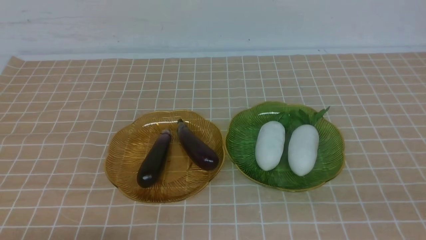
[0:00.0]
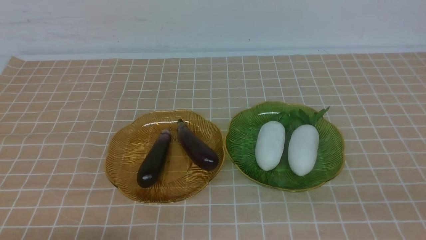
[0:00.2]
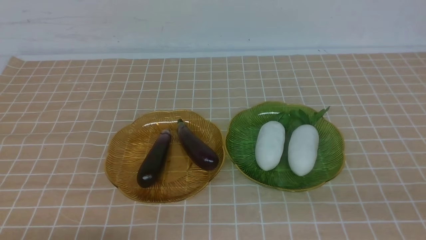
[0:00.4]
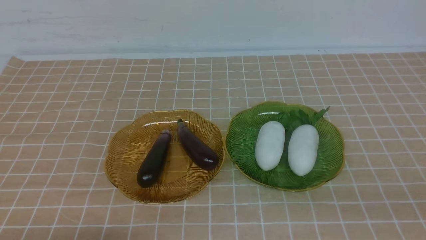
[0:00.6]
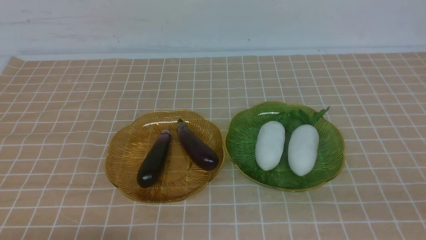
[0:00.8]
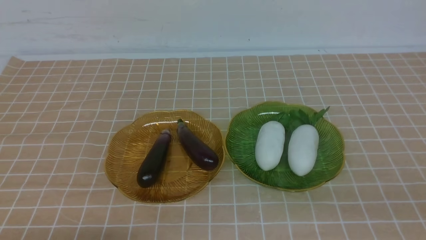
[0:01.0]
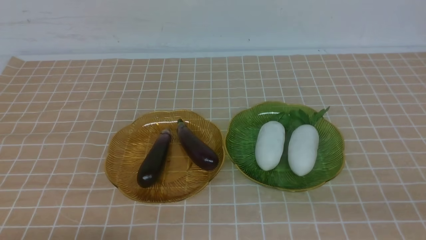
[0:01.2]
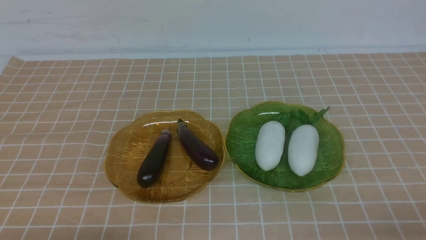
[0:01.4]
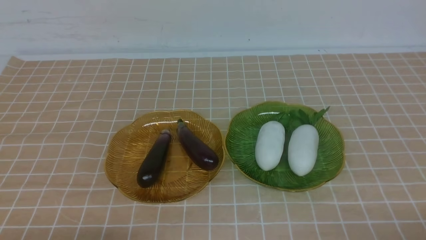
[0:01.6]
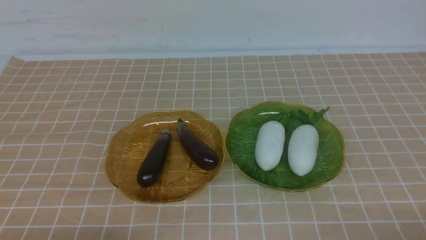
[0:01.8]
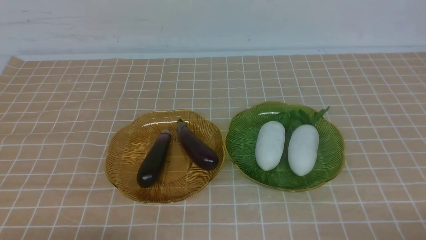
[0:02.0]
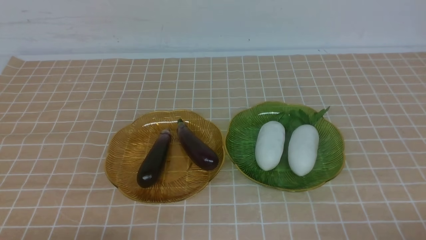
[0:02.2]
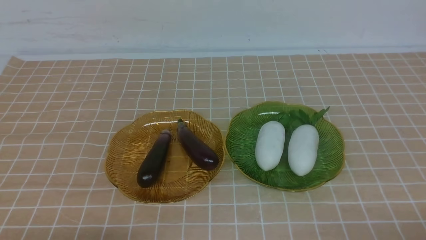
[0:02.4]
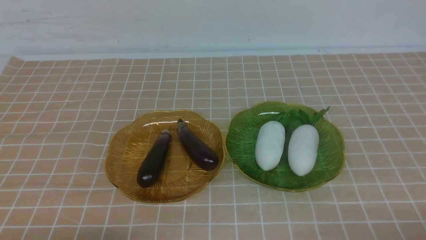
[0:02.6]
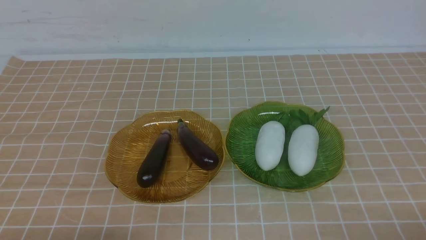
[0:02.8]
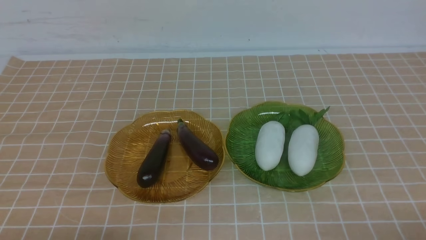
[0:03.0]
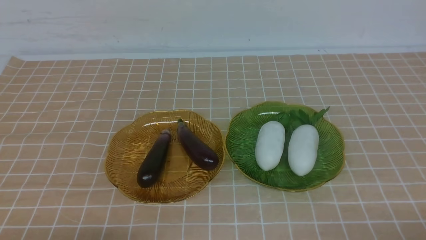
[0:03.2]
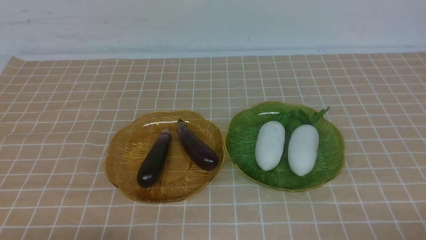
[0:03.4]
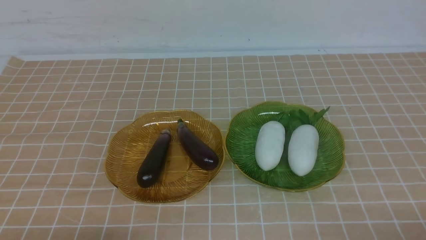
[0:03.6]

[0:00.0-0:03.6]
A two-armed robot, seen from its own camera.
0:01.8 to 0:03.6: Both grippers stay put.

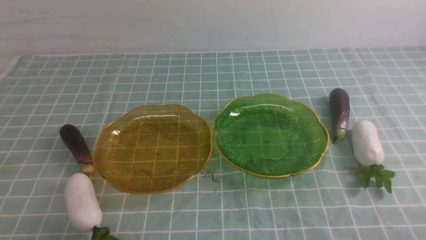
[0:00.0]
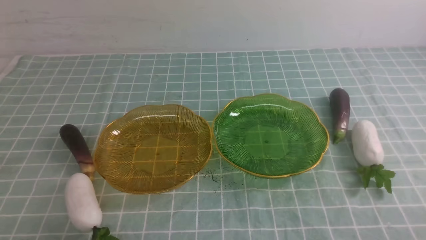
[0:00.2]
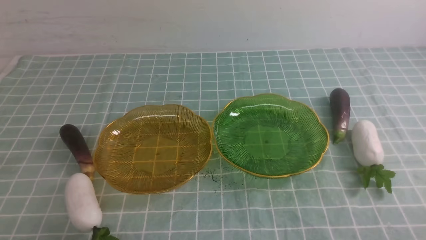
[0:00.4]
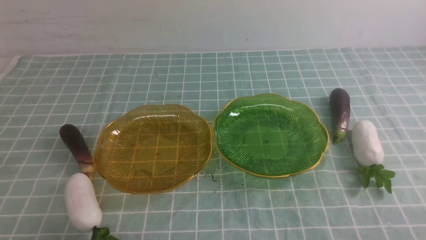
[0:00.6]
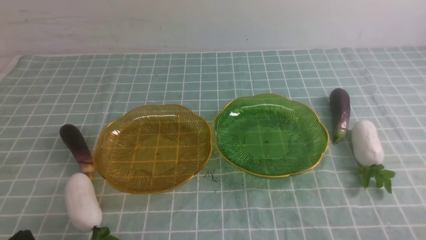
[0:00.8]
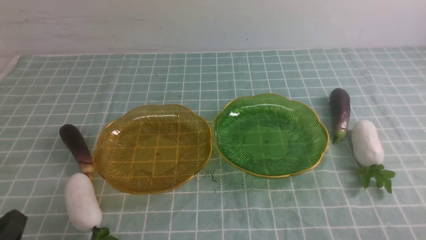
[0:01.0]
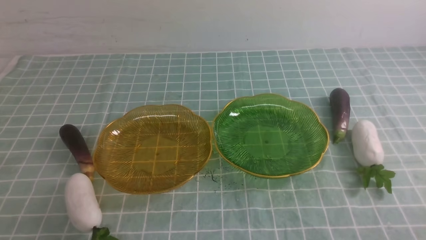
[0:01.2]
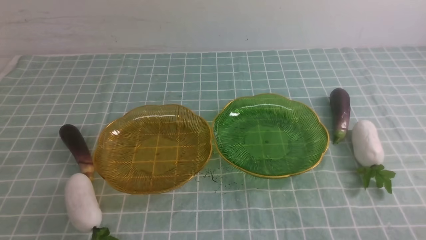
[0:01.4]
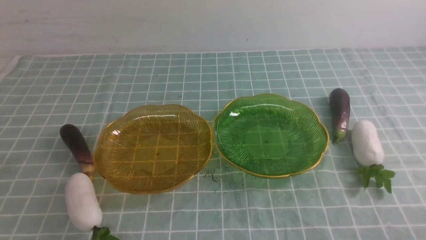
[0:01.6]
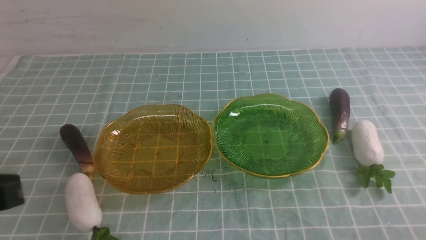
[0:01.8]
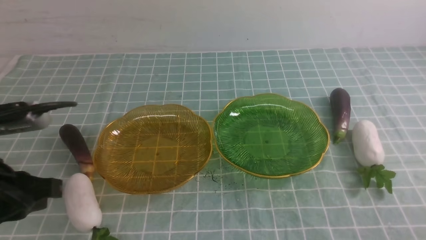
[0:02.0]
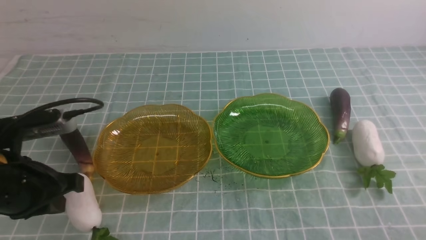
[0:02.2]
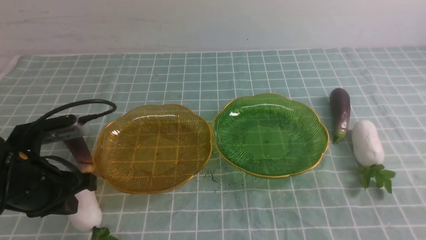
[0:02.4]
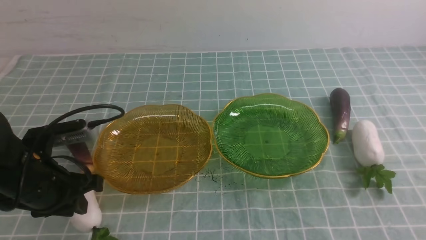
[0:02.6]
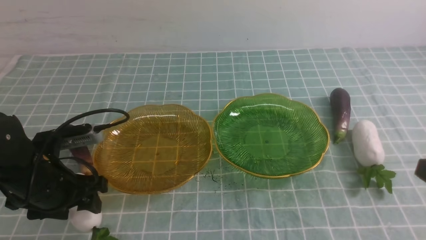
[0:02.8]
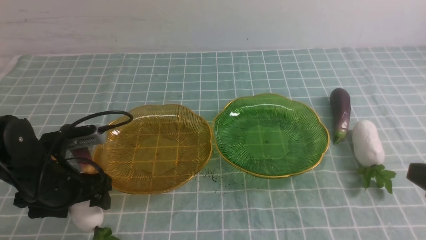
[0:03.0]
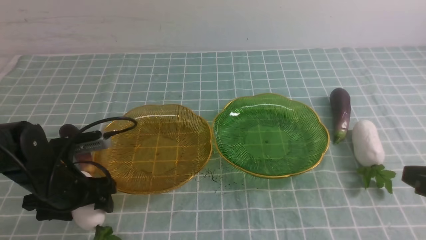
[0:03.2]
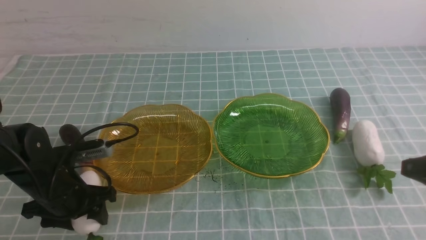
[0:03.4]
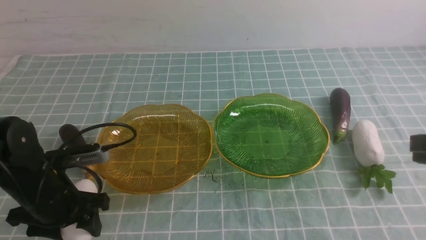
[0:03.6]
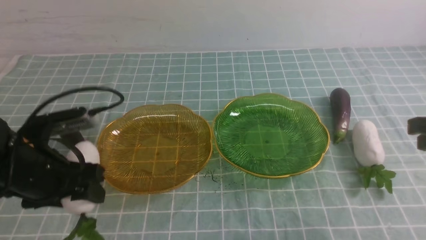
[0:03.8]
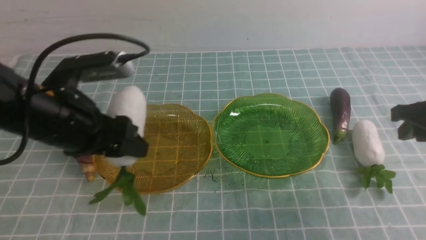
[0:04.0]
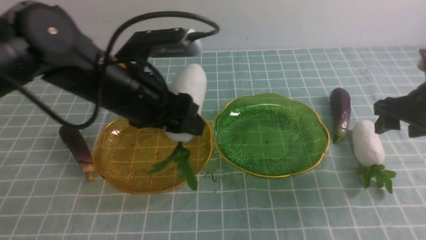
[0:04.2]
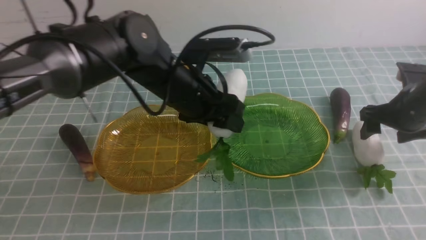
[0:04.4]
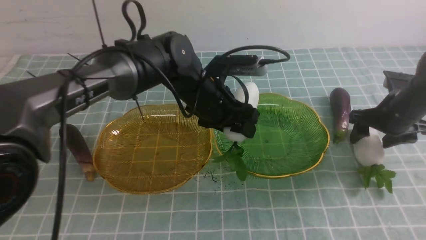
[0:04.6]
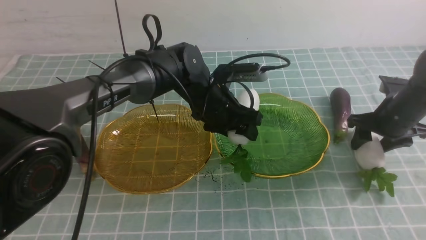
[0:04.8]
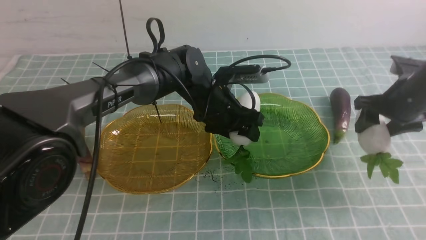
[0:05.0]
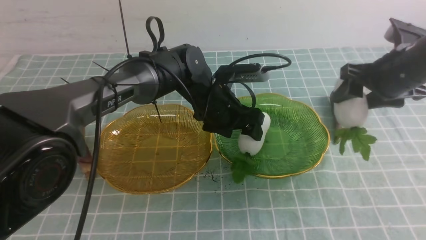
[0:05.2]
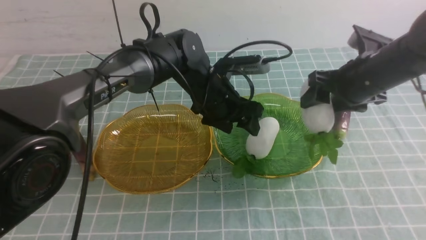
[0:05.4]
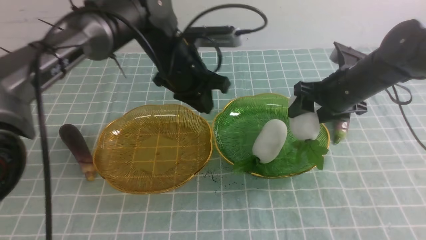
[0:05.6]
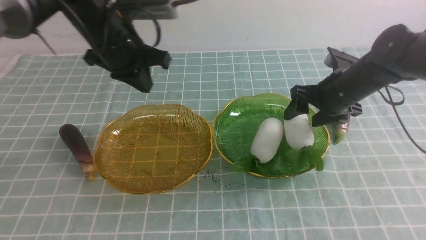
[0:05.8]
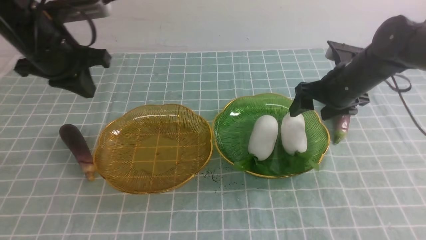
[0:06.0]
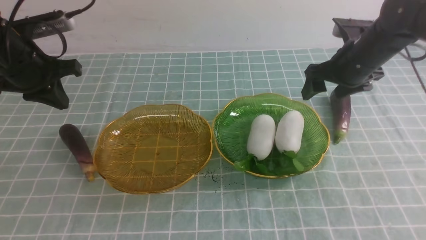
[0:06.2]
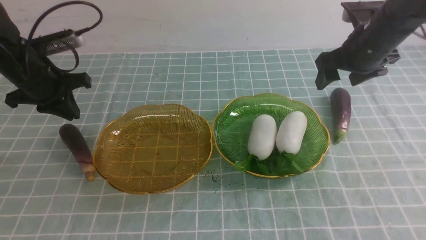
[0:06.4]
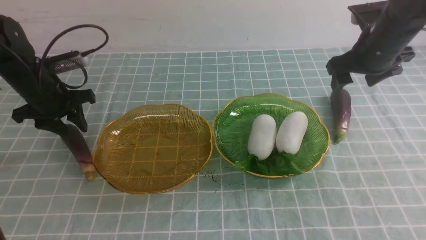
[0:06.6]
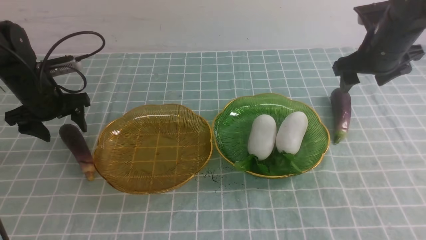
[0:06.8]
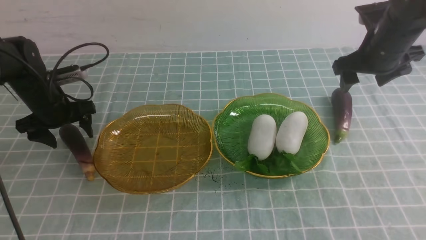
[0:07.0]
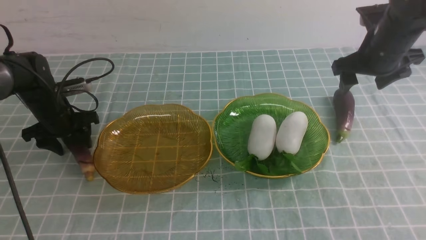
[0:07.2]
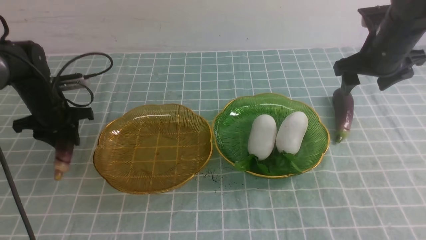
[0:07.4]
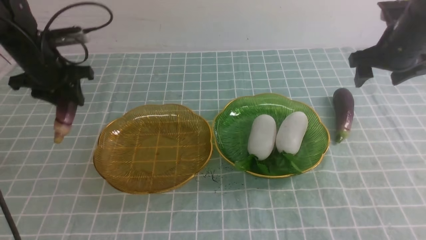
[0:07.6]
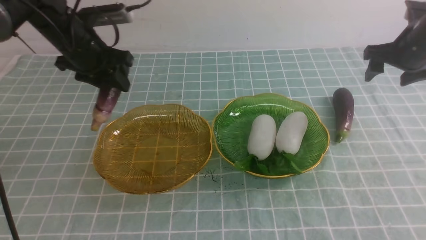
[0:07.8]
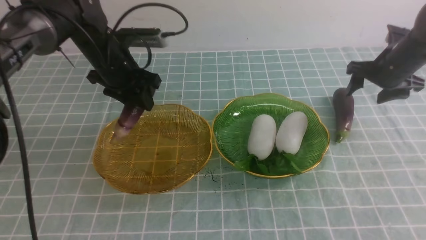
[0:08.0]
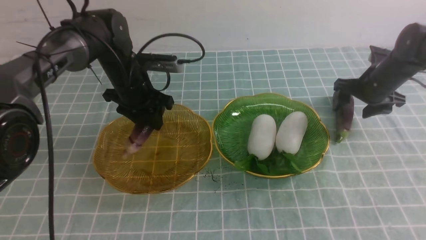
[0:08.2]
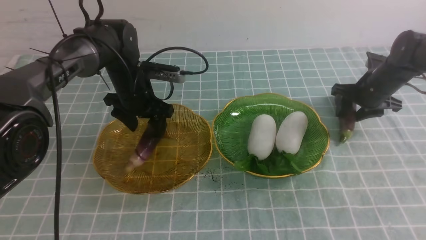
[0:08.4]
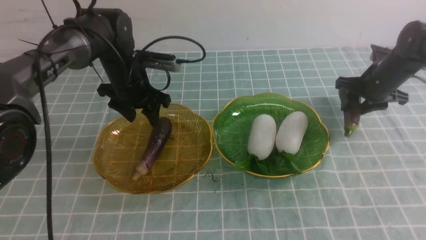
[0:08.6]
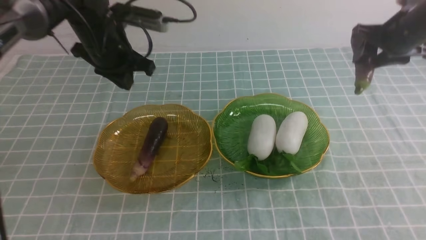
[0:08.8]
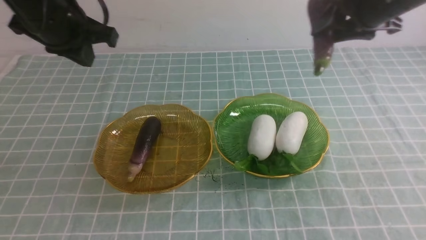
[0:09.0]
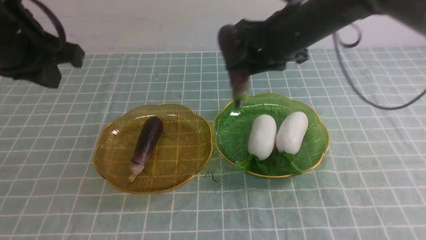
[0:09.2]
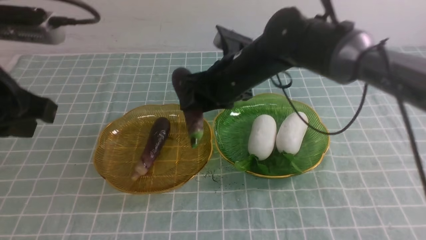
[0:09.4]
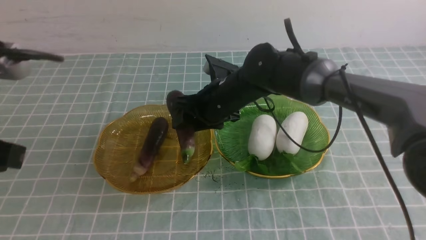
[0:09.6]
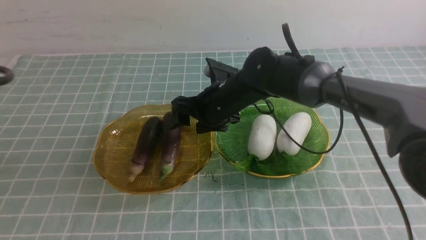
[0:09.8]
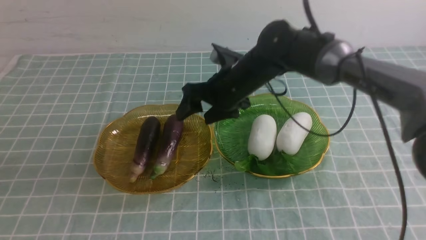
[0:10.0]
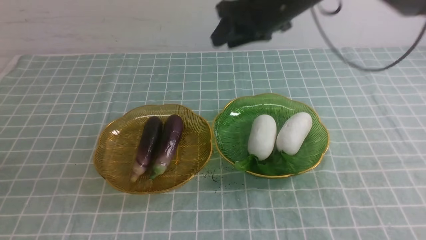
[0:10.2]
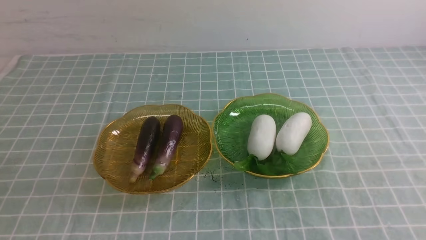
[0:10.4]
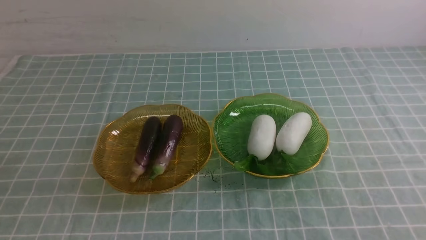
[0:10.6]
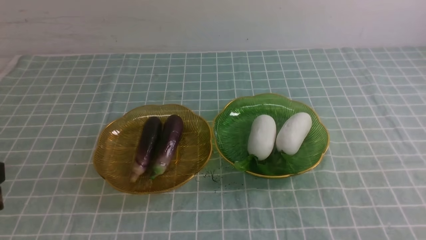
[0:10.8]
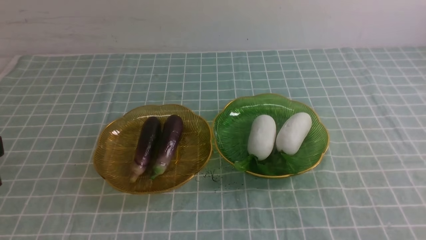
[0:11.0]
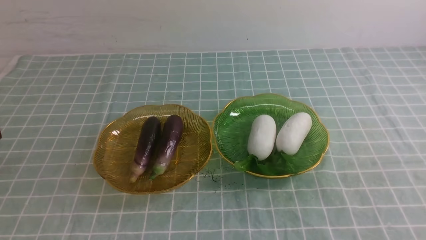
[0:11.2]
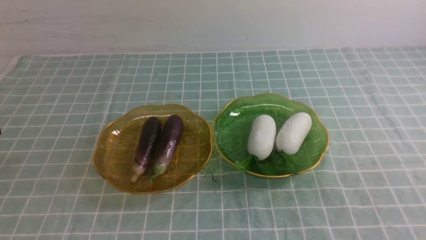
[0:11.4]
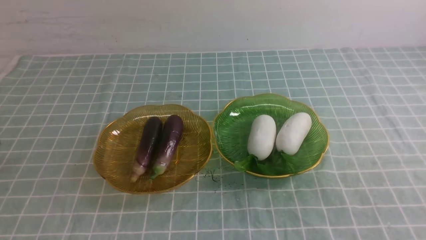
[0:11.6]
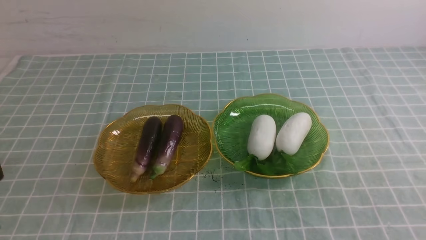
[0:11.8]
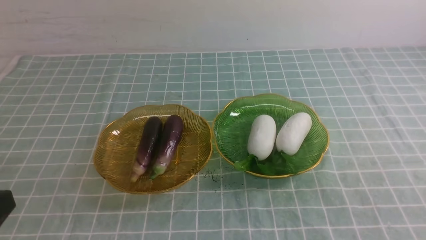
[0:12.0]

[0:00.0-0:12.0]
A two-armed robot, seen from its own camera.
Step, 0:00.0 to 0:04.2: use the left arm to grab a radish and put it into the right plate.
Step, 0:04.4 to 0:05.8: use the right arm to grab a radish and put it into the right plate.
Step, 0:06.2 to 0:08.4: use the left arm to grab an eggplant and put it into the left plate.
Step, 0:08.6 to 0:09.8: use the right arm to grab an eggplant and put it into the left plate.
0:01.6 to 0:03.0: The left gripper heads forward and downward, covering approximately 25 cm, and opens.
0:03.0 to 0:04.4: The right gripper shifts approximately 25 cm forward, and opens up. The left gripper moves to the right, forward and upward, roughly 25 cm.
0:04.4 to 0:06.0: The right gripper is displaced to the left by about 10 cm, while the left gripper heads to the left, covering approximately 20 cm, and closes up.
0:06.0 to 0:07.6: The left gripper goes roughly 10 cm downward and forward, and opens, while the right gripper heads to the right, covering roughly 10 cm.
0:07.6 to 0:09.0: The left gripper travels upward, backward and to the right by roughly 20 cm, and closes its fingers, while the right gripper heads to the left and upward, covering roughly 15 cm, and closes.
0:09.0 to 0:10.4: The right gripper shifts about 20 cm upward and backward, and closes its fingers; the left gripper heads backward, covering some 25 cm.

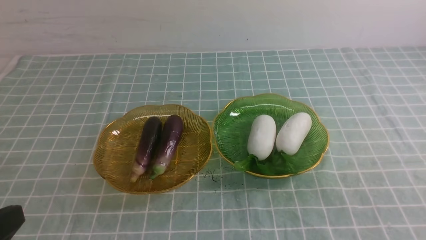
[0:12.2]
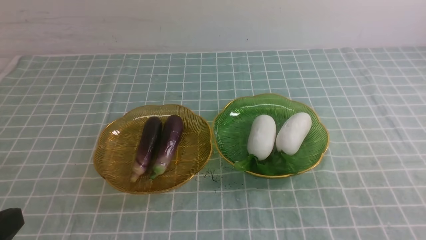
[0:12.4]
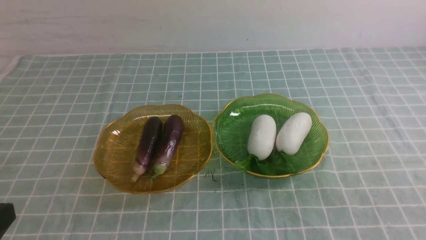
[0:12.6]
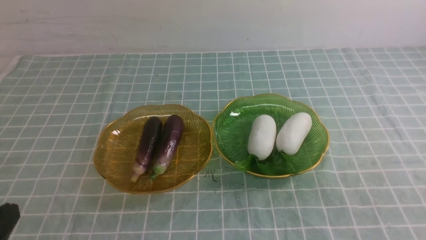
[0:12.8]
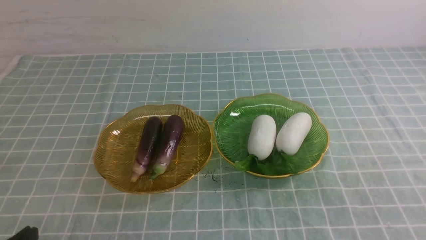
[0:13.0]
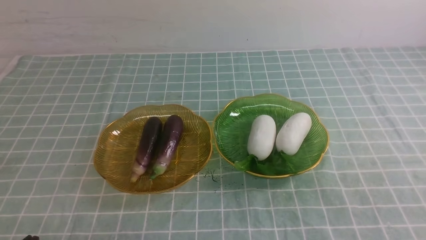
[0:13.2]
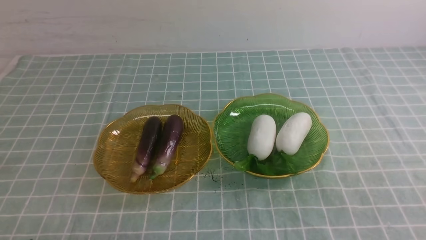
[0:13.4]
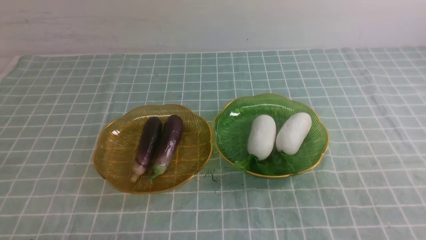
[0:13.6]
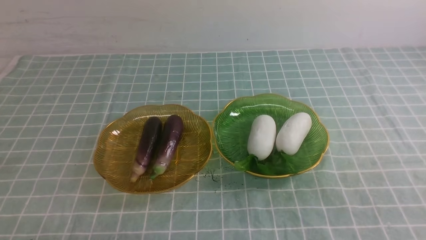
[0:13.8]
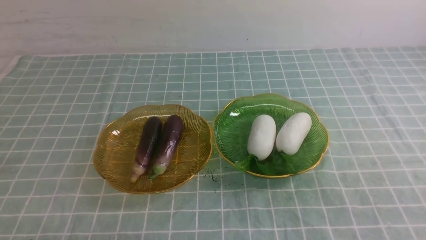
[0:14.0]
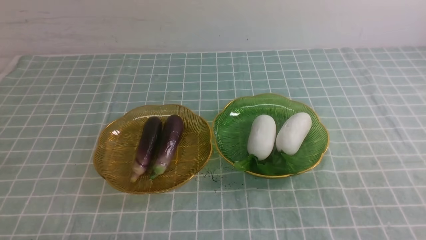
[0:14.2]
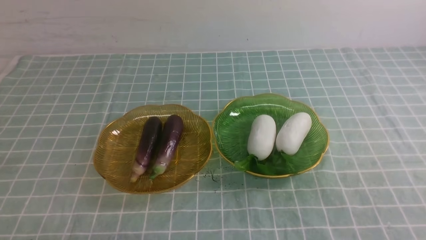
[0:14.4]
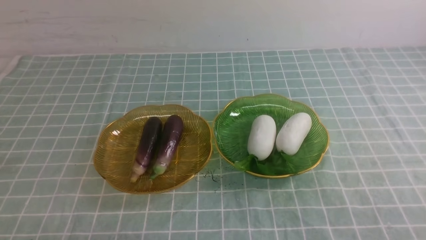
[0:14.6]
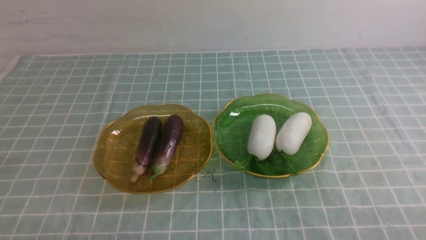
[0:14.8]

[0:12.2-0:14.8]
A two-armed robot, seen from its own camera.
0:12.2 to 0:13.4: The left gripper shifts about 10 cm downward.
